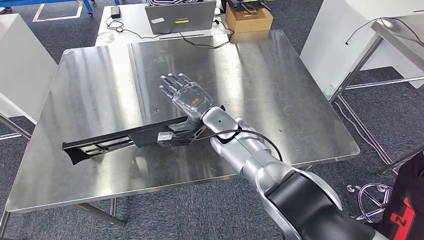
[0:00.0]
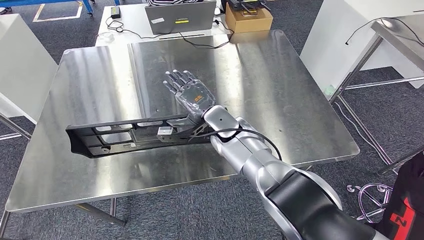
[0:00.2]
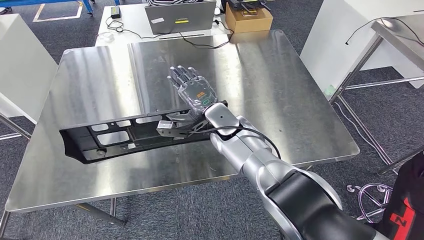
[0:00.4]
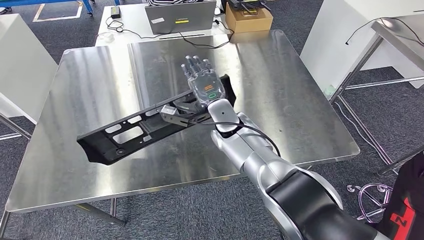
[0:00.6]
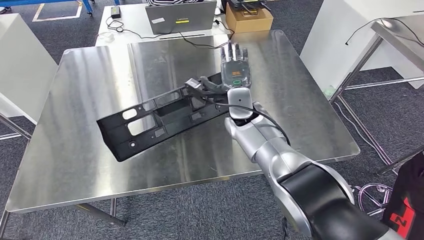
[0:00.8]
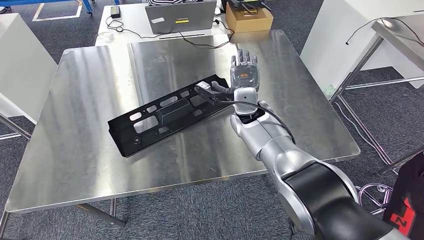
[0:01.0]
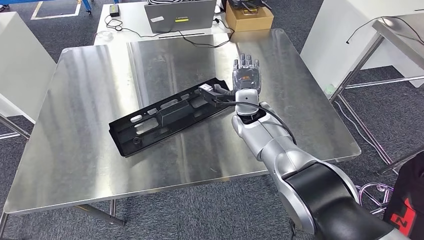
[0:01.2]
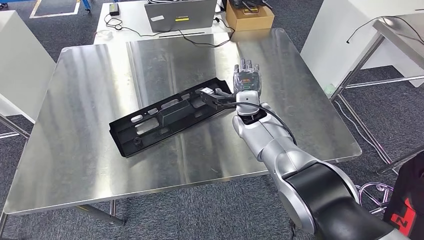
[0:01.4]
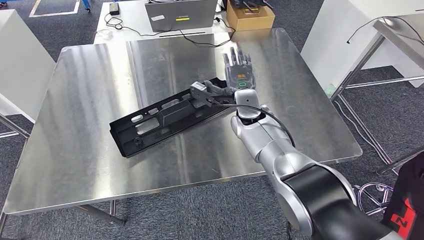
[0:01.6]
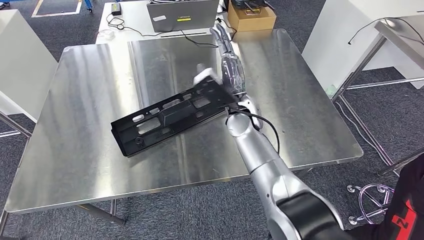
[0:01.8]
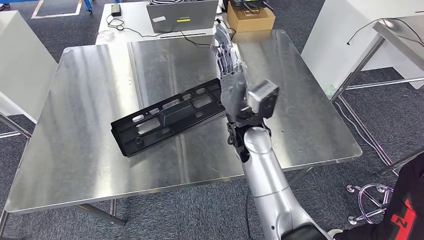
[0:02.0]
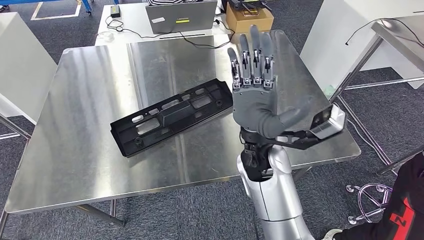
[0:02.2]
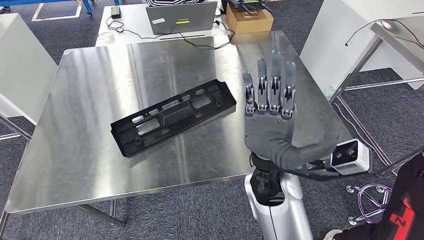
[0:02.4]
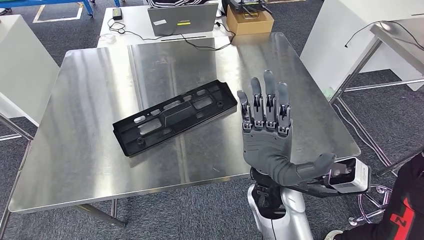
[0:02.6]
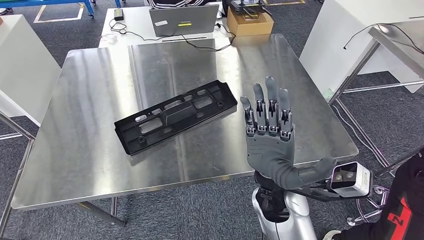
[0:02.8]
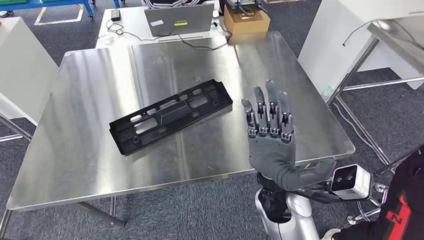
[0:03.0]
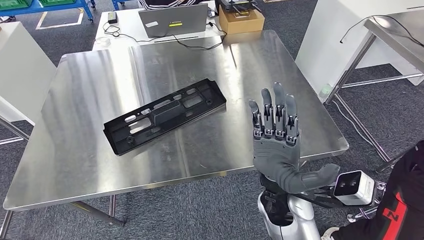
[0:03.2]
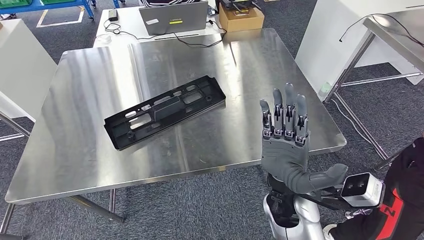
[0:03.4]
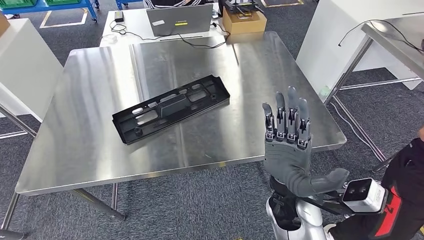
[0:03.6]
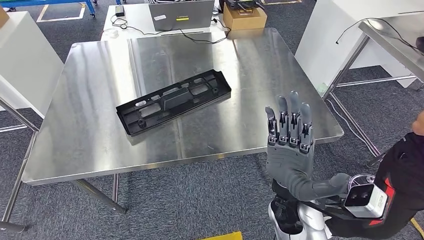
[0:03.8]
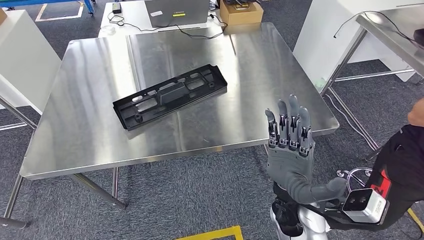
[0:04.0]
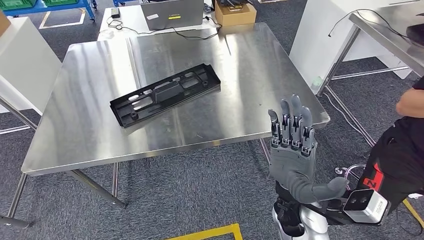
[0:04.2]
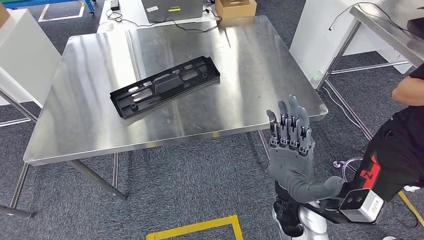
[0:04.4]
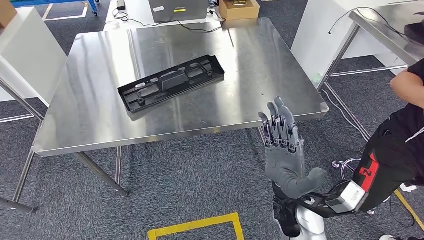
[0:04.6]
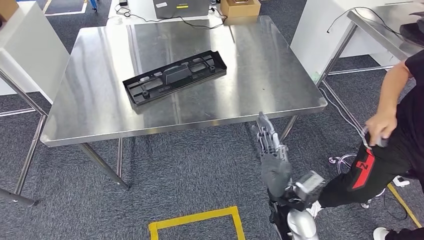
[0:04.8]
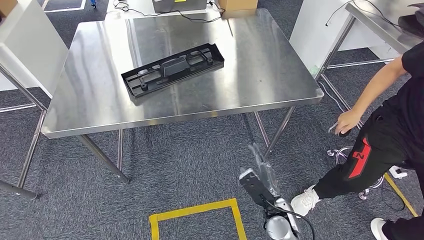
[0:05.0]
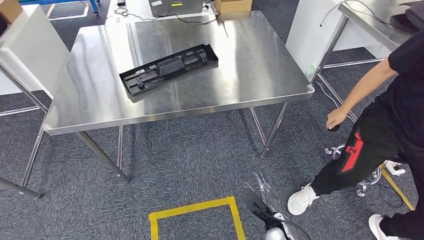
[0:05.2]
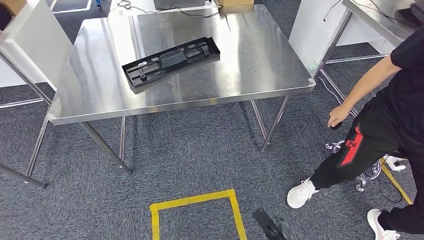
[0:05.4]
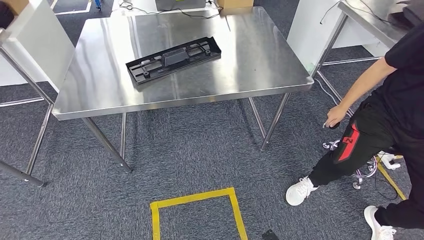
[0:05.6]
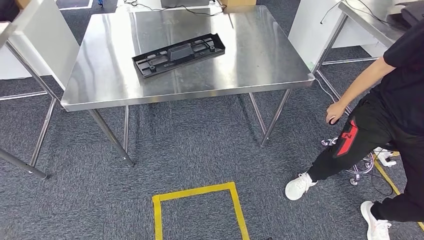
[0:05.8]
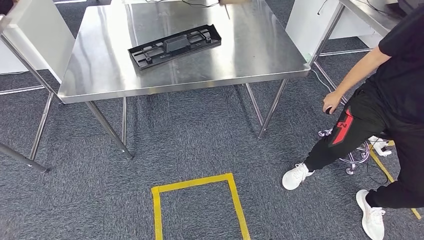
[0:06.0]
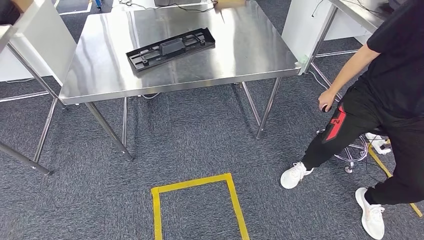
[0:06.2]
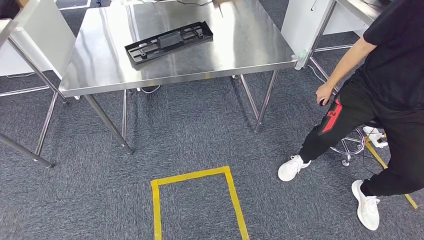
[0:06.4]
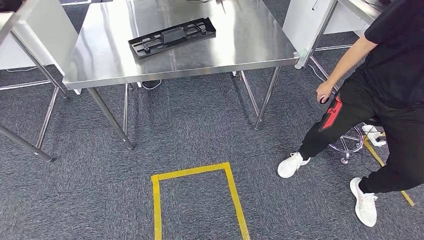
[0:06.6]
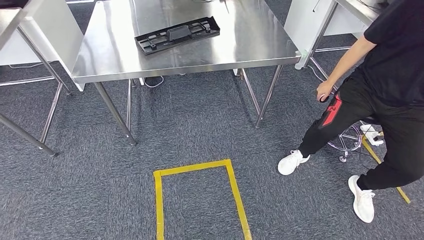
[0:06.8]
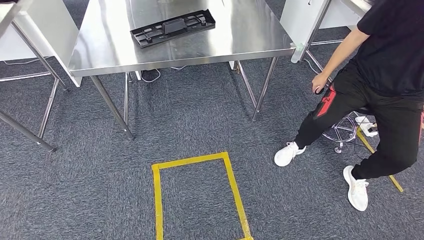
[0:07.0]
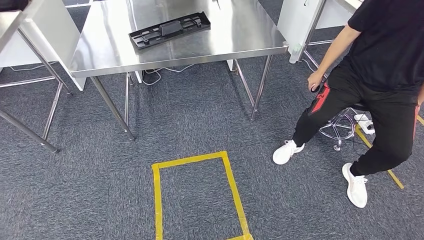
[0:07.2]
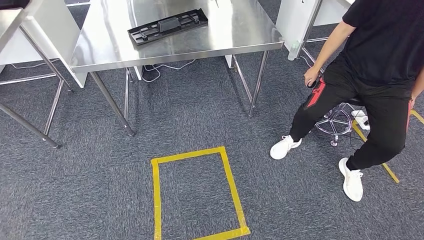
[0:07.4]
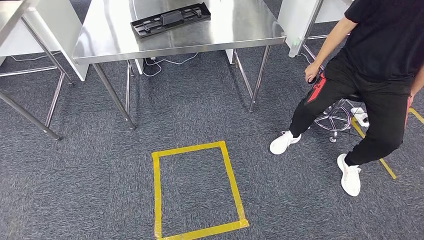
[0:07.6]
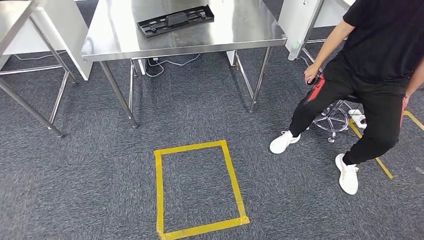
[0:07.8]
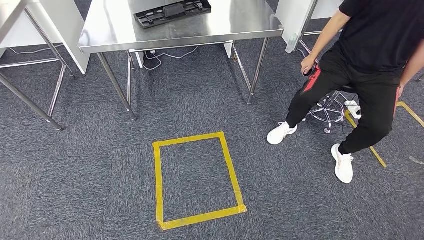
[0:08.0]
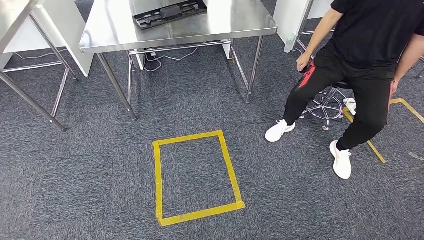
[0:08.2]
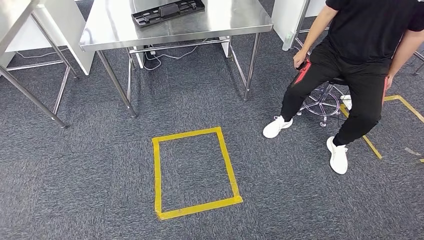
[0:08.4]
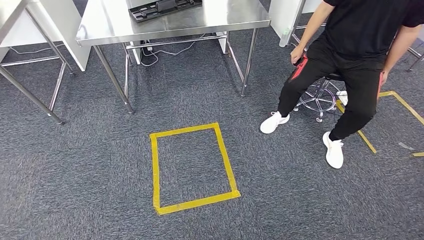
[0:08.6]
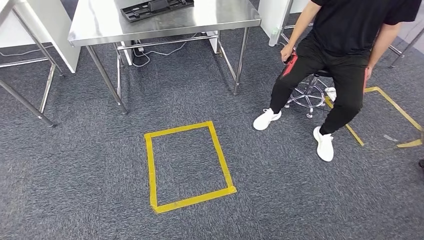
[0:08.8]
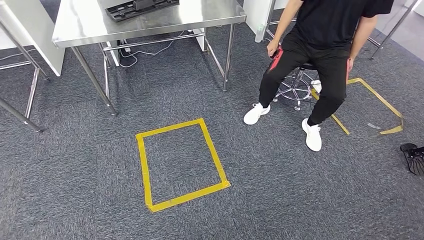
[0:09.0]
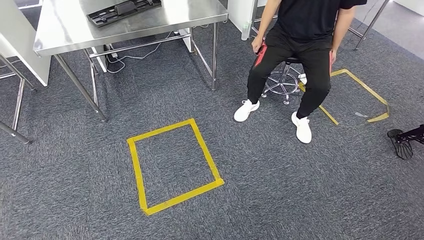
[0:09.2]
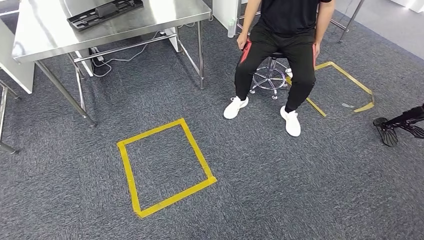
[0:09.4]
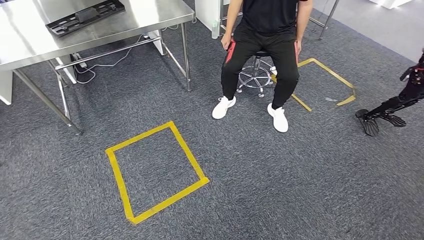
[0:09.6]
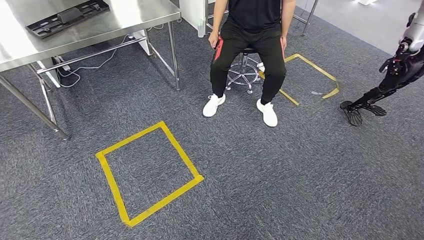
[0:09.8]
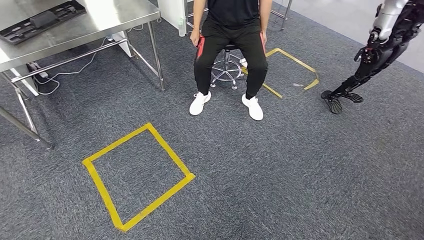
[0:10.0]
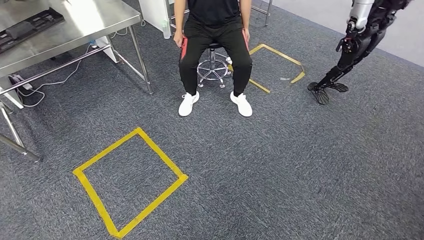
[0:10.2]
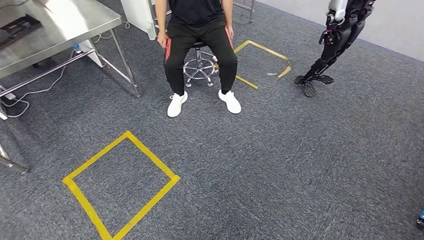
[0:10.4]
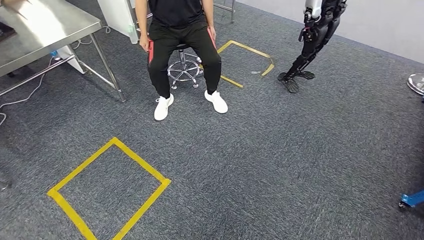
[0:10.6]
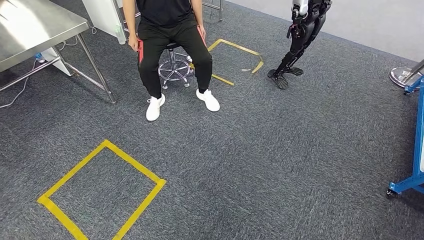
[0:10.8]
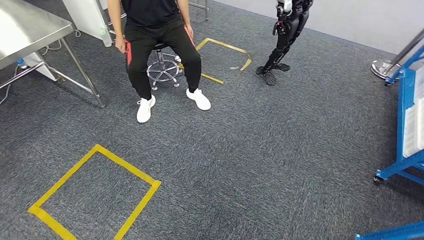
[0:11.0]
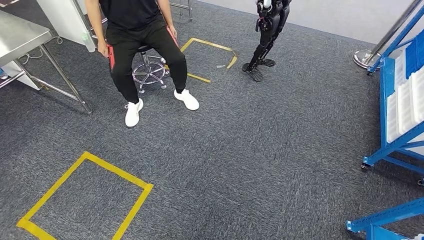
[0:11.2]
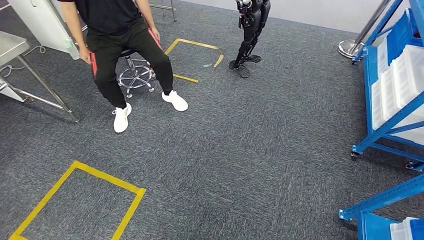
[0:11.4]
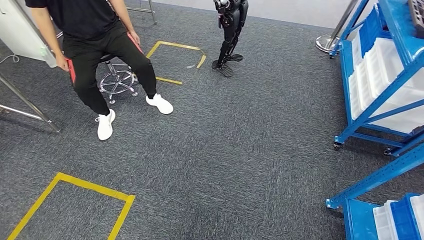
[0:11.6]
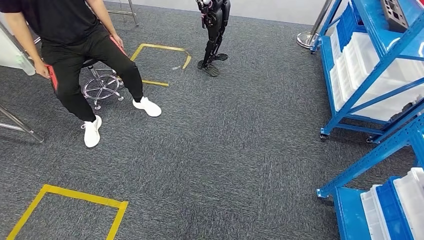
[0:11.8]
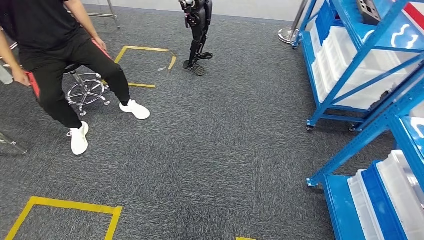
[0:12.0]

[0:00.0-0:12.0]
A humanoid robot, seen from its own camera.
Step, 0:00.2 to 0:04.4: Insert the large material into the corresponding slot on the workbench.

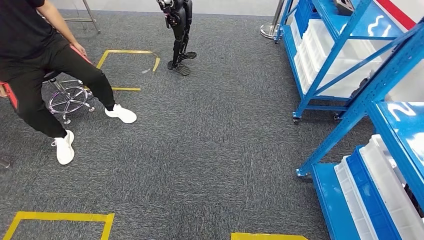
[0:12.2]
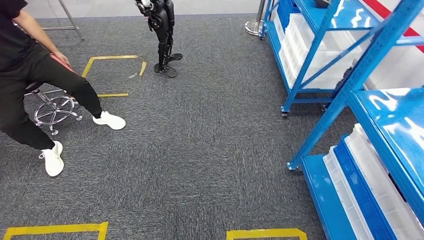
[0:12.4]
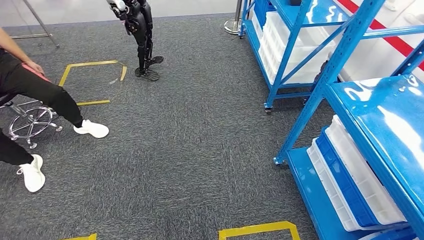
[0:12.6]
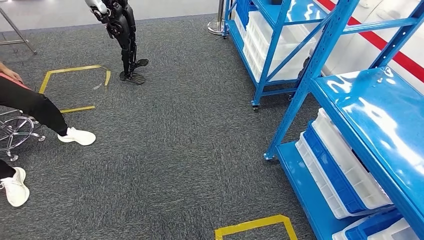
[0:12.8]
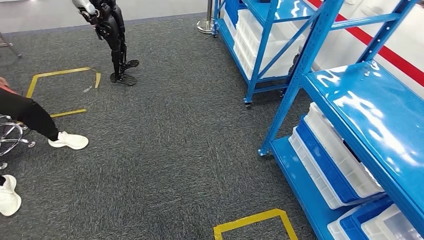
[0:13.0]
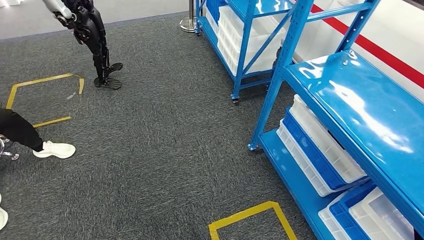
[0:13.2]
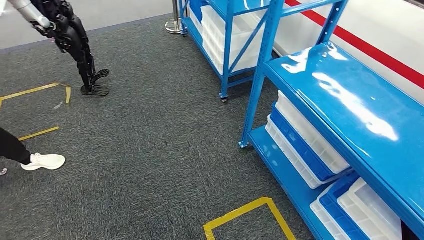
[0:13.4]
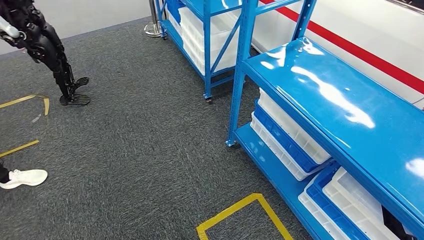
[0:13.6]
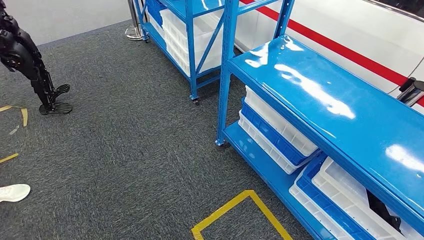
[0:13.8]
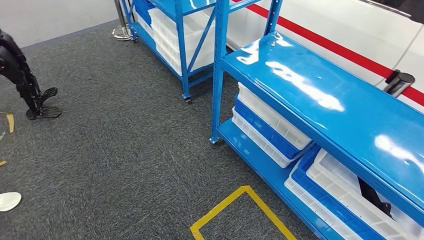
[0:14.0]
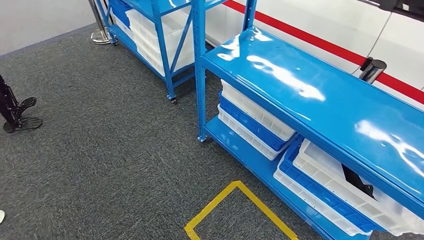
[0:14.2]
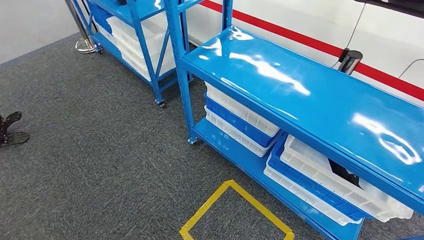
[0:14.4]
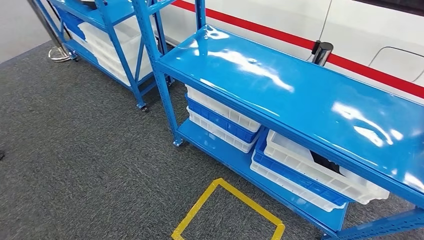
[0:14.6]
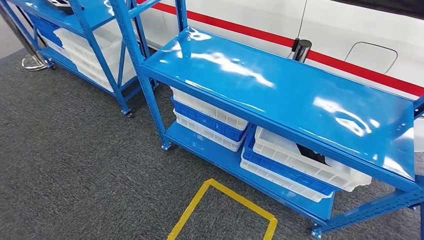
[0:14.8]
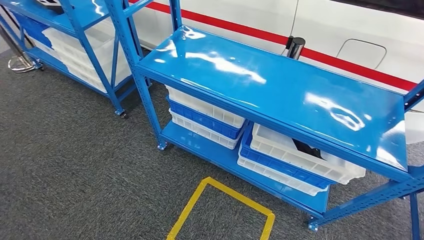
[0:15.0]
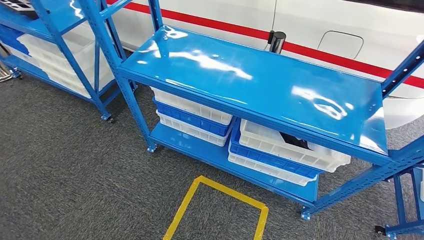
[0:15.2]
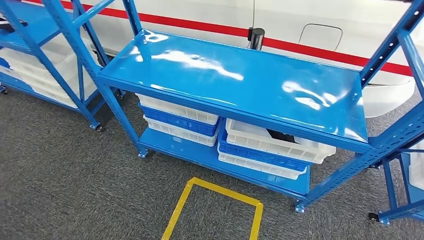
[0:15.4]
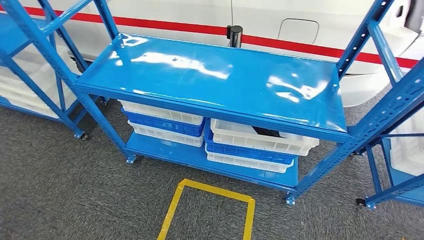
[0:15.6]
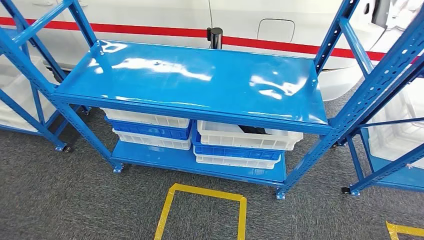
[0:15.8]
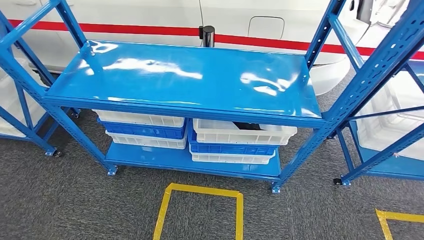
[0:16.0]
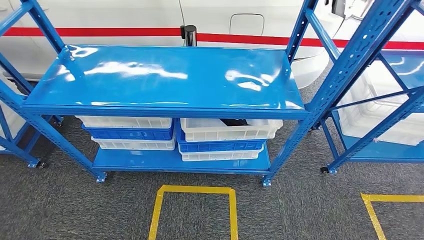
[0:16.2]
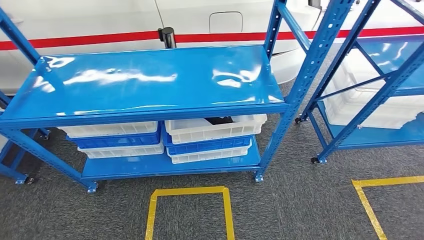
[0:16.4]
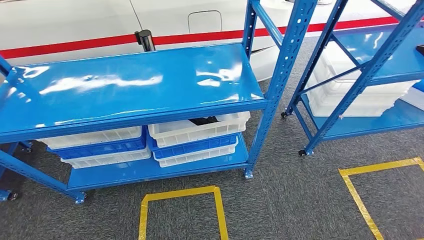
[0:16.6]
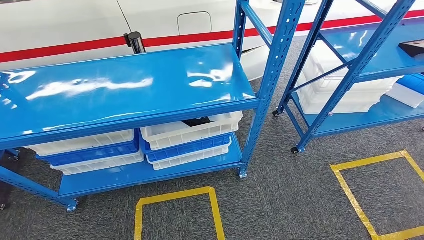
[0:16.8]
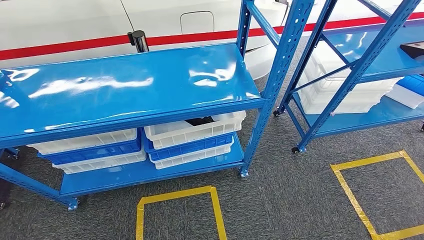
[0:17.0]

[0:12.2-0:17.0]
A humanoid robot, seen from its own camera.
Step, 0:12.2 to 0:16.8: Move to the initial position of the shelf.
